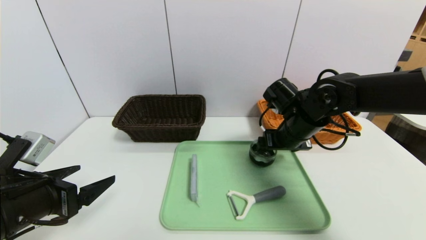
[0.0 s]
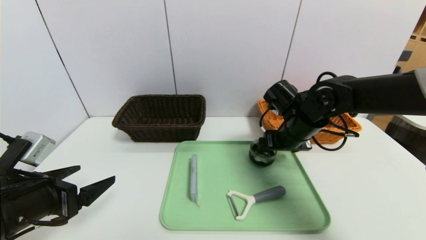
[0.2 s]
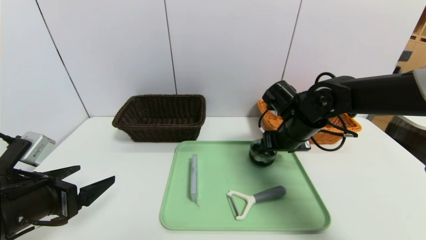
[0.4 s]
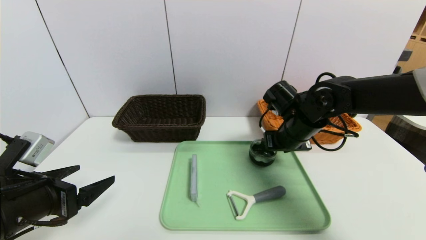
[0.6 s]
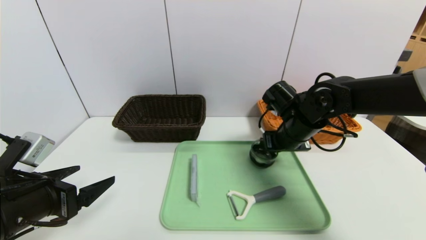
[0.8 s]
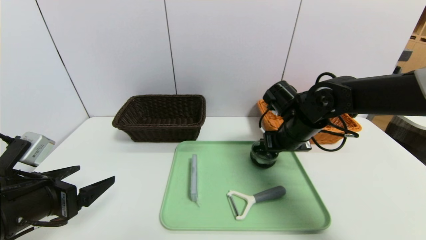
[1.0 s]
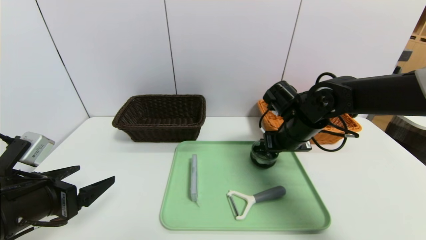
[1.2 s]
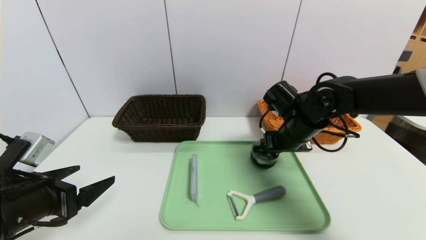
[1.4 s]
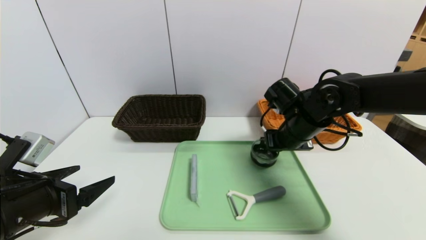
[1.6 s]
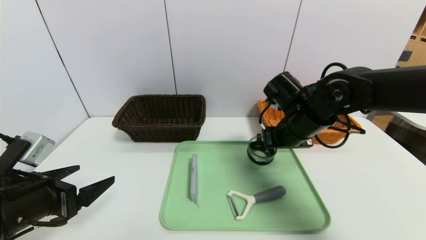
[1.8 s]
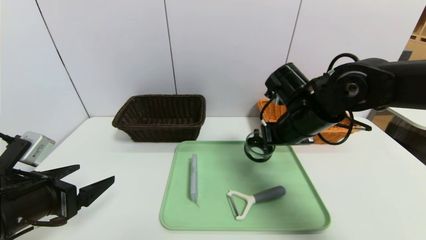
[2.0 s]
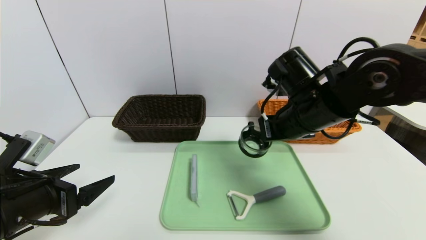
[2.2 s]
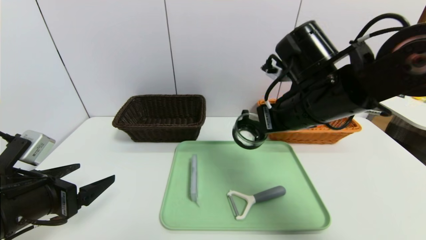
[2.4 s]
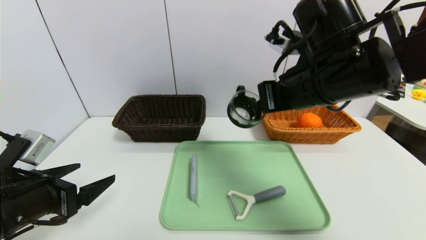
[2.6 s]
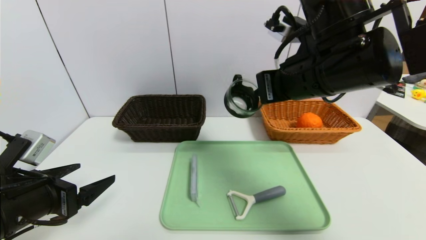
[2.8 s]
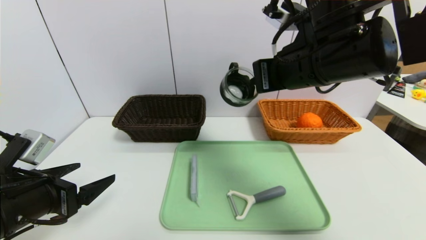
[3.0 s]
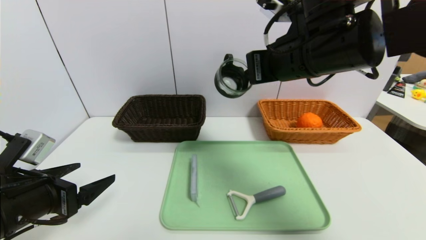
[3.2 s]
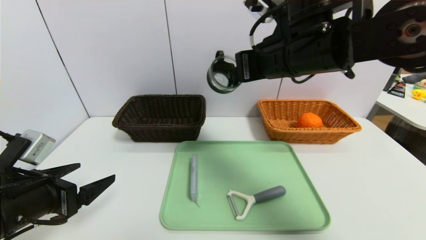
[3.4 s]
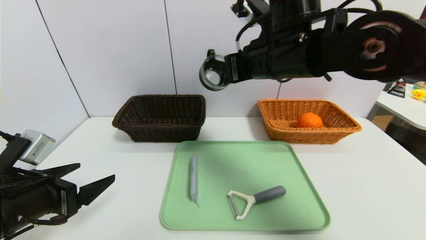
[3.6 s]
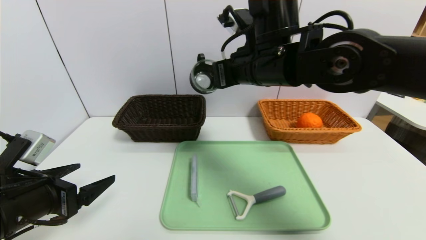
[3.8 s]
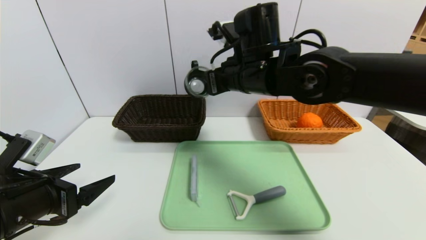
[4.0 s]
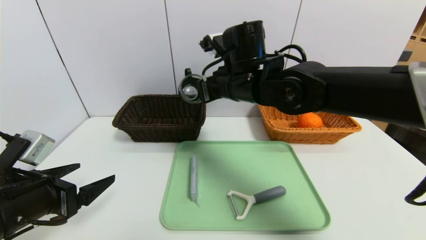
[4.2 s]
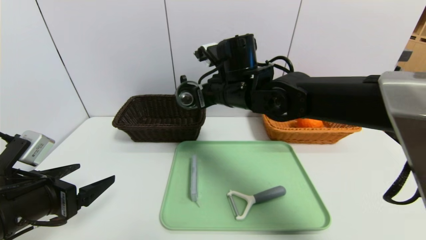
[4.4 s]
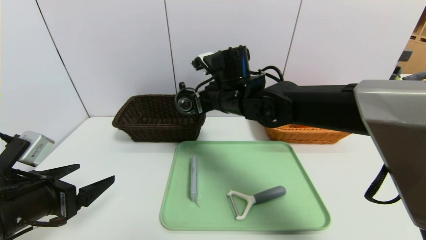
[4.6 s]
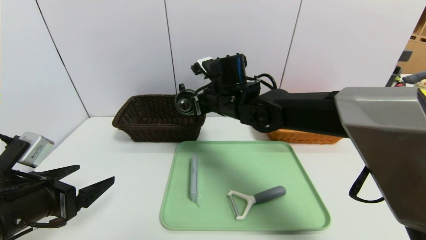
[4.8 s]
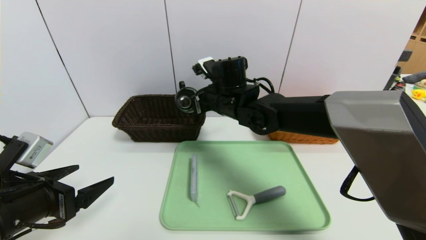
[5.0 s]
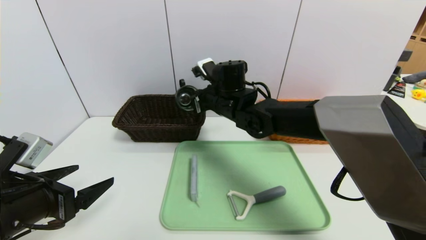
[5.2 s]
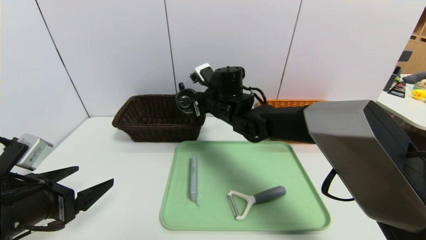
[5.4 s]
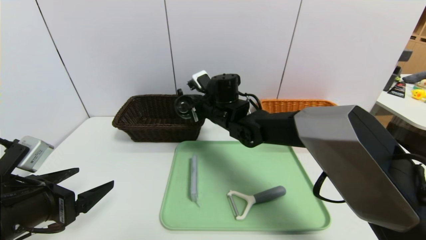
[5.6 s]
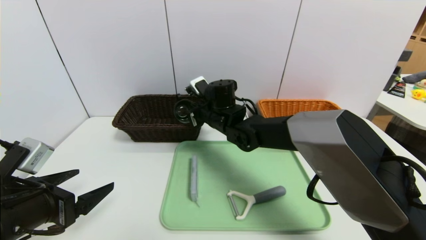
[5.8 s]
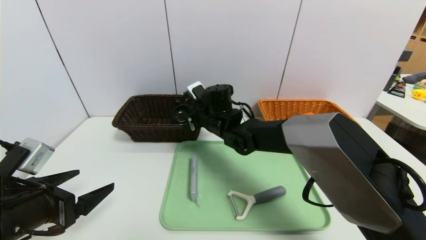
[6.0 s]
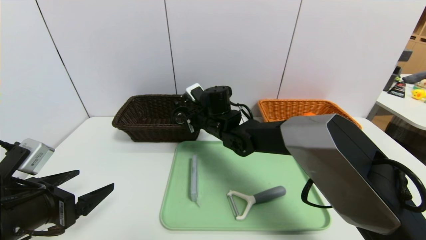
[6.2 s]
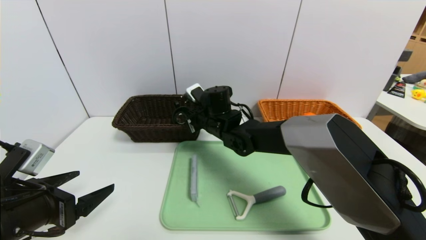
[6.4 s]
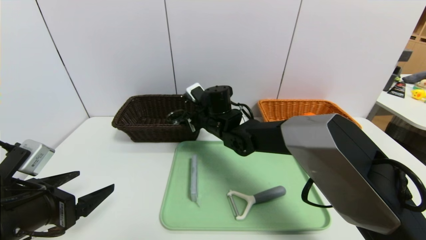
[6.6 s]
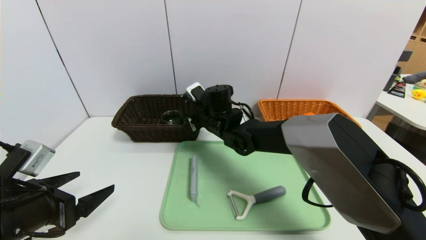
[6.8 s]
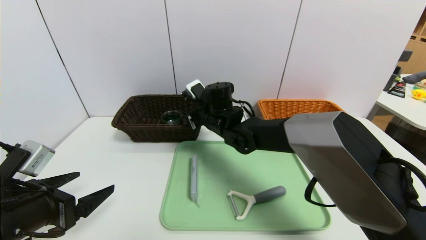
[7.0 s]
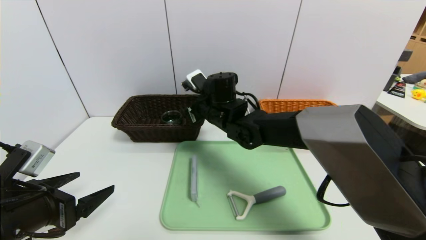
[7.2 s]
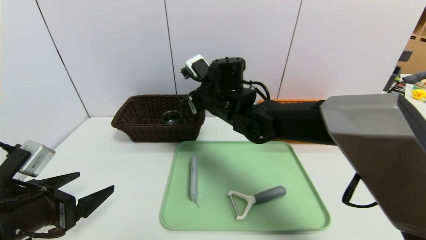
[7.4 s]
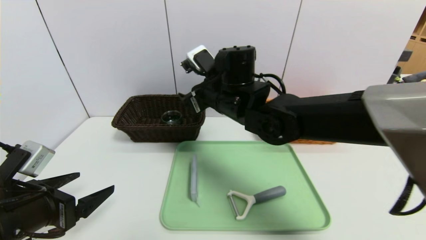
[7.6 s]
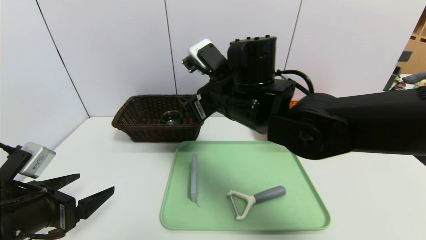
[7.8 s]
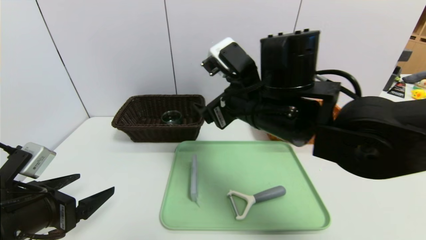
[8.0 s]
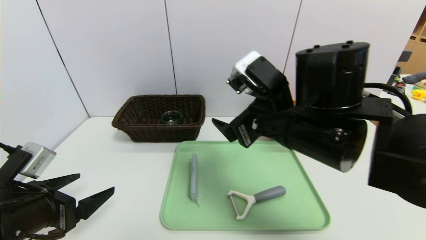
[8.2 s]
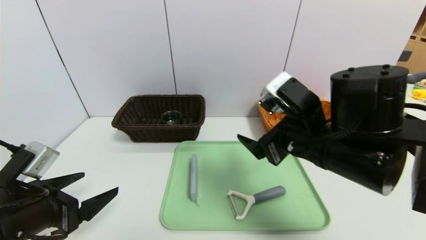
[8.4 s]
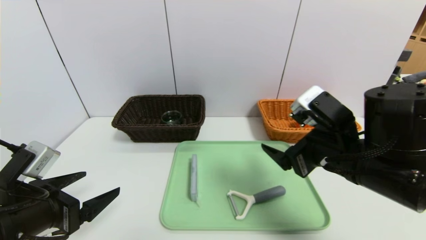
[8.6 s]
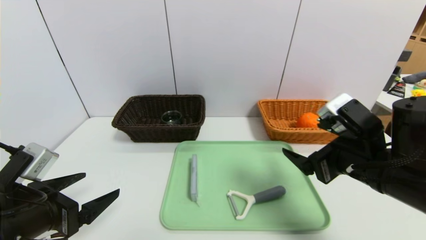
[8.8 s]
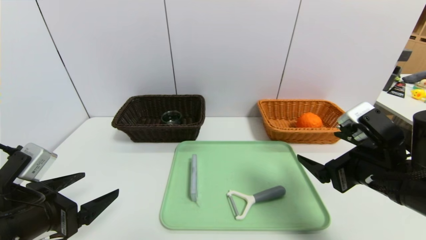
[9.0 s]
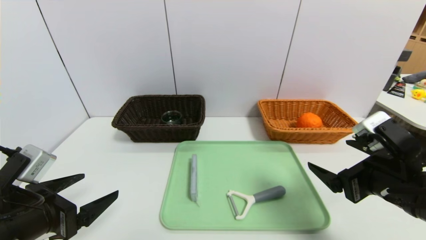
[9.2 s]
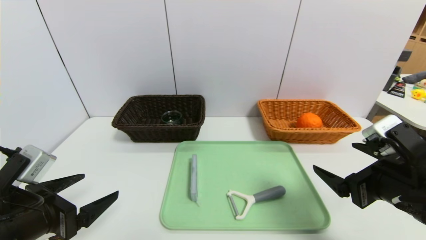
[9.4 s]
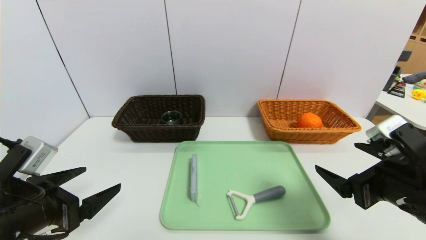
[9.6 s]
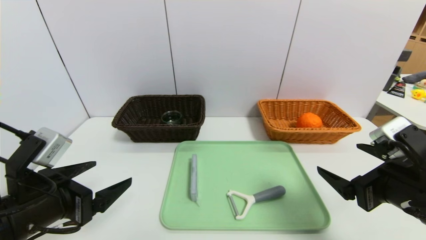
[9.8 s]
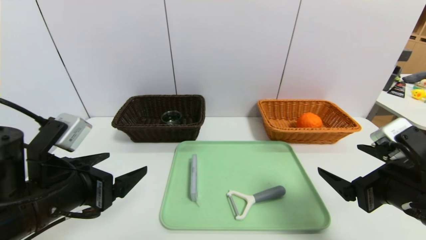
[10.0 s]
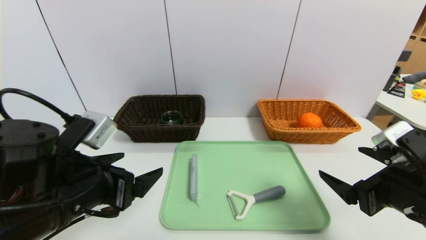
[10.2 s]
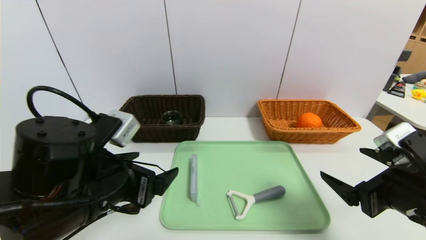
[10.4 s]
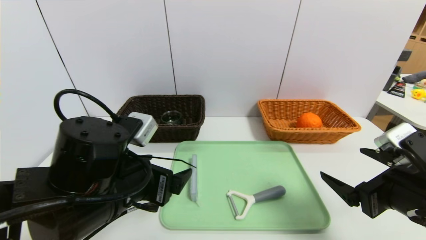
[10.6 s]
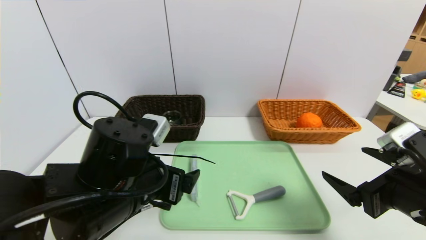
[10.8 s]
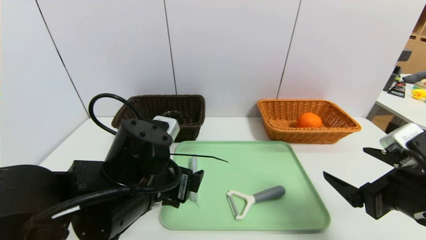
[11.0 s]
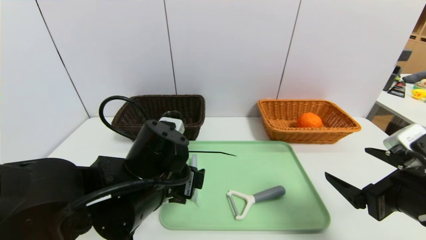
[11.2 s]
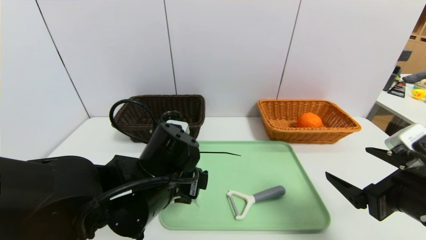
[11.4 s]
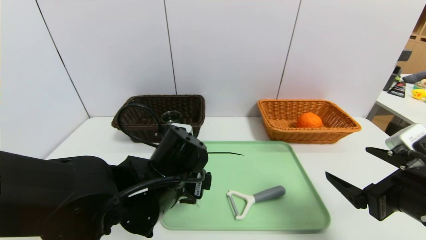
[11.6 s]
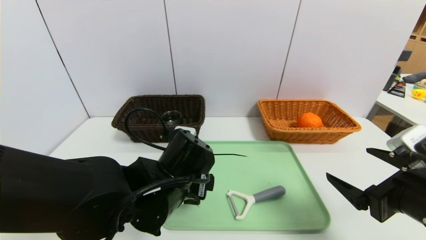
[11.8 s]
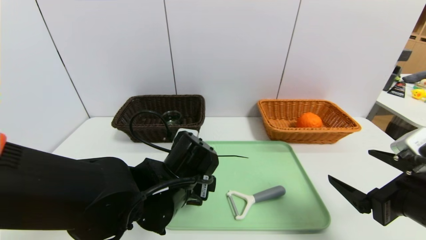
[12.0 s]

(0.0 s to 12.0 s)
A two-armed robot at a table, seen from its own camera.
Task of the whole recording: place the food in the right basket with the right gripper, and place the non food items in the left basket with the left gripper.
0.0 s - 1.6 s: The right gripper closes.
1.6 s - 3.0 s: The right gripper is displaced upward and backward by approximately 15 cm.
3.0 s - 4.4 s: The right gripper goes roughly 15 cm to the left, forward and downward.
4.4 s - 6.0 s: The right gripper shifts about 10 cm downward and forward.
6.0 s - 7.6 s: The right gripper moves upward and backward, roughly 15 cm, and opens up.
7.6 s - 9.0 s: The right gripper heads to the right and backward, covering roughly 25 cm.
9.0 s - 10.4 s: The left gripper is displaced to the right by about 10 cm.
10.4 s - 12.0 s: The left gripper goes approximately 10 cm to the right, downward and forward.

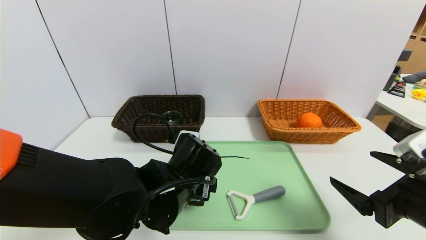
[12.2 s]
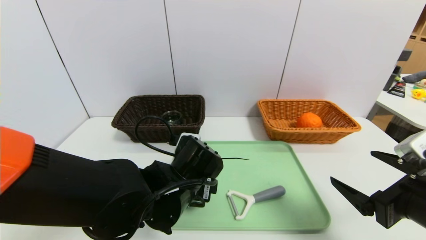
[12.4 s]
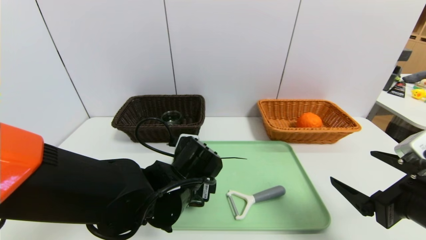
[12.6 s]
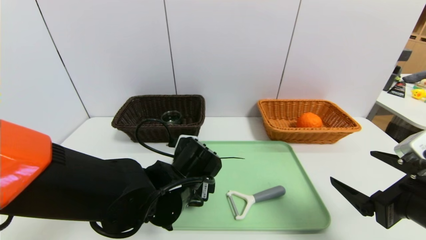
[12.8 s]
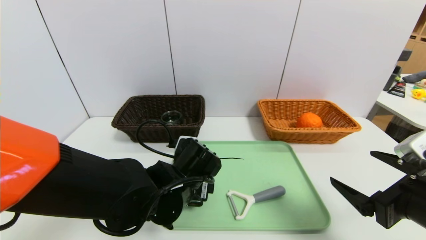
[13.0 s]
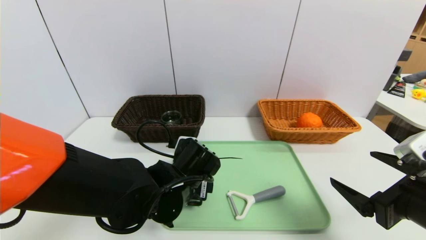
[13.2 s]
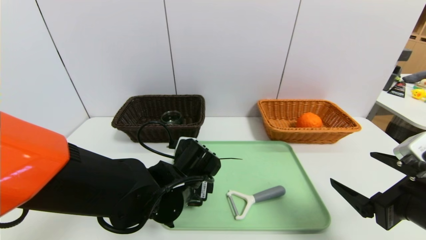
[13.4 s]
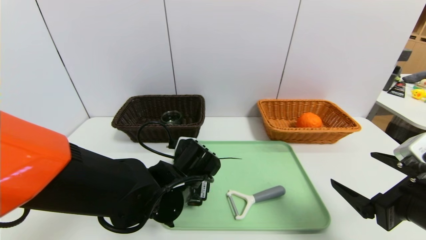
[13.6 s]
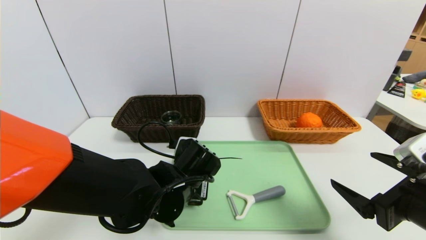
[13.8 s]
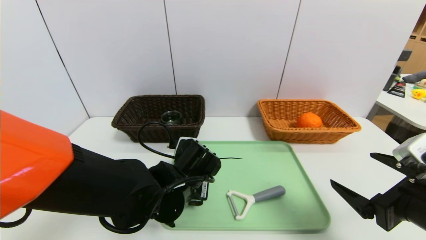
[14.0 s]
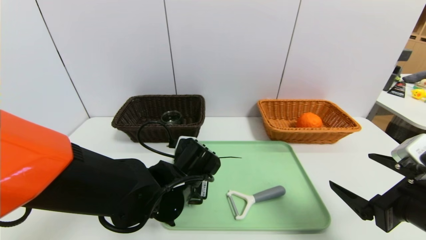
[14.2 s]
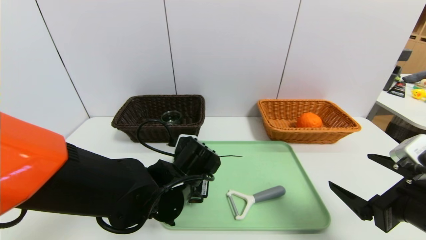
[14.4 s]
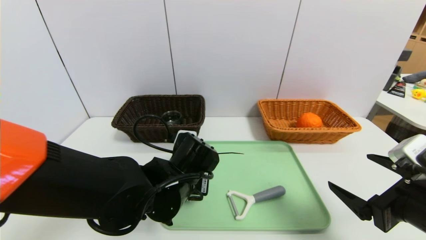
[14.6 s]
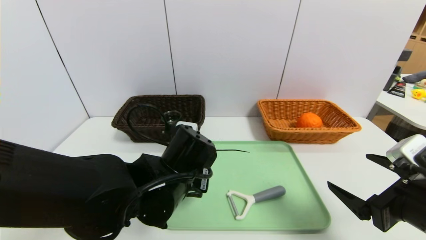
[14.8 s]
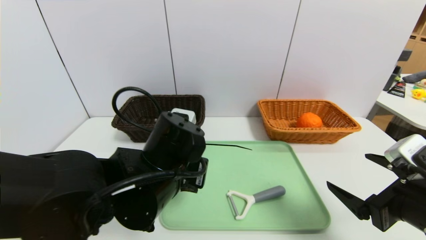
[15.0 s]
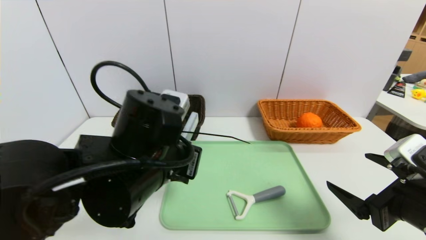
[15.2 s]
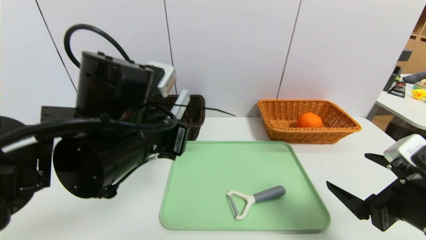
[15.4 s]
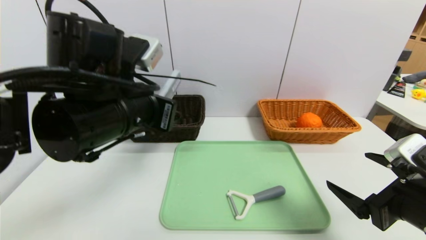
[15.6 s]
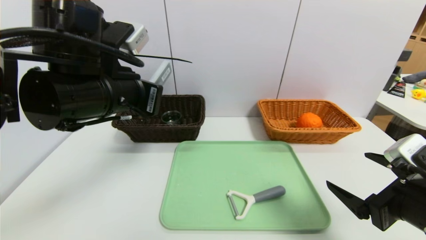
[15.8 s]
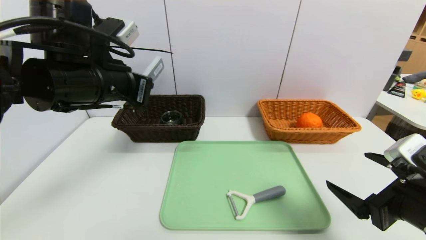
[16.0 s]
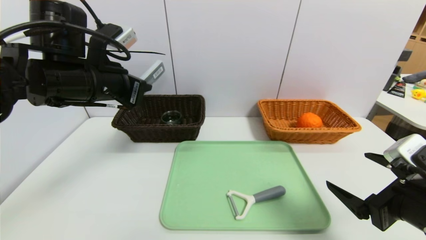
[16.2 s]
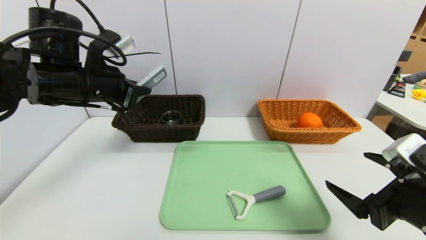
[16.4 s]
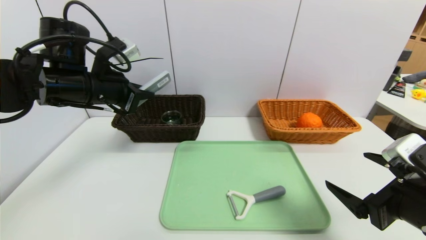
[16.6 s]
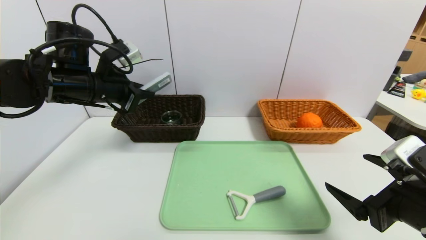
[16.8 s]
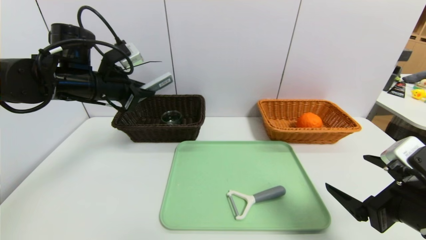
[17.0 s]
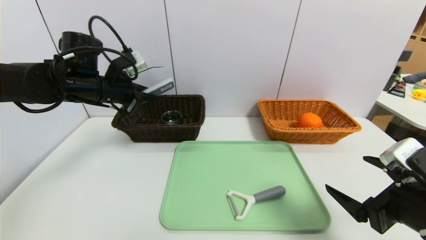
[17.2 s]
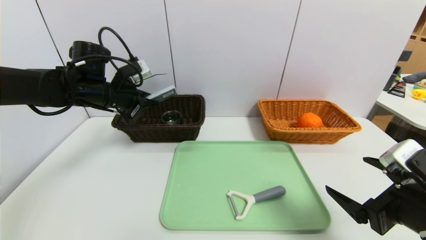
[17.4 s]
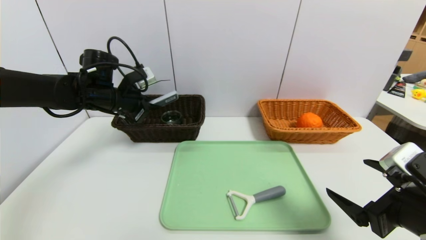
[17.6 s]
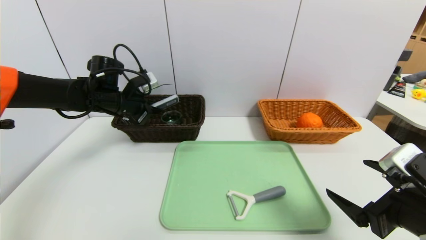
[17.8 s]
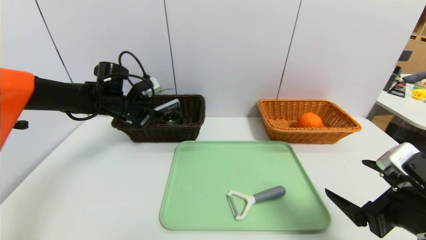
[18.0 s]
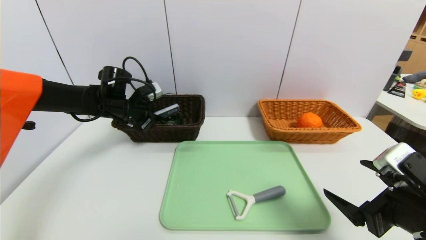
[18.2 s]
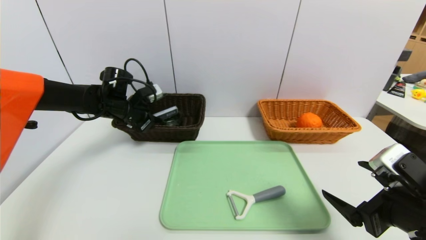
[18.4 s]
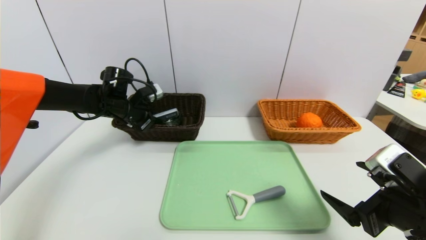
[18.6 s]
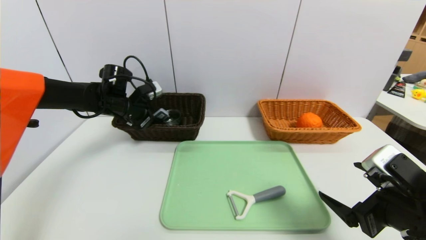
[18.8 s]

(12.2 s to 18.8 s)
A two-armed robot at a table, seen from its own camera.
Task of the whole recording: place the food in the right basket with the right gripper, and place the non food items in the left basket with the left gripper.
12.2 s - 13.8 s: The left gripper closes.
13.8 s - 15.4 s: The left gripper shifts roughly 15 cm upward, and closes its fingers.
15.4 s - 17.2 s: The left gripper goes some 20 cm forward and to the left.
17.2 s - 18.8 s: The left gripper is displaced downward and forward by roughly 10 cm, and opens its fingers.
